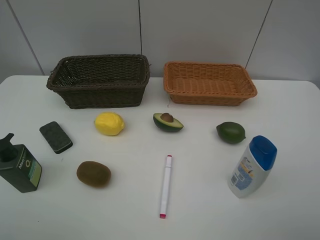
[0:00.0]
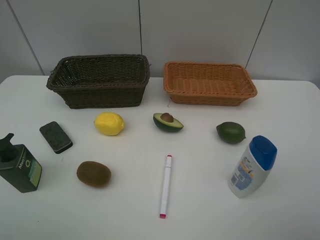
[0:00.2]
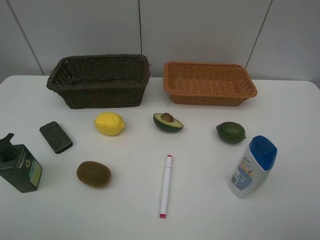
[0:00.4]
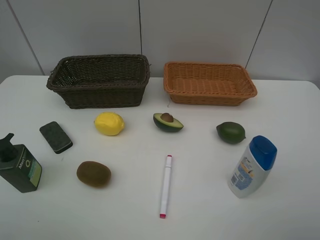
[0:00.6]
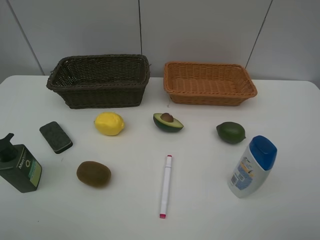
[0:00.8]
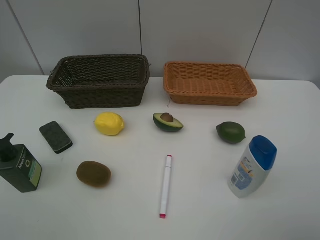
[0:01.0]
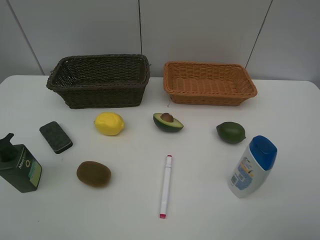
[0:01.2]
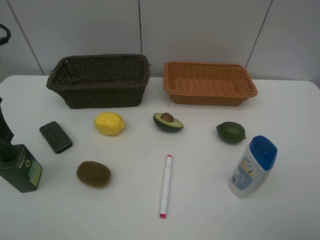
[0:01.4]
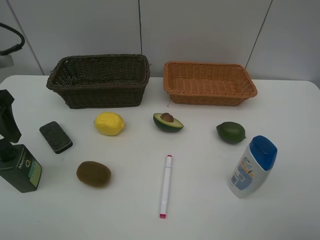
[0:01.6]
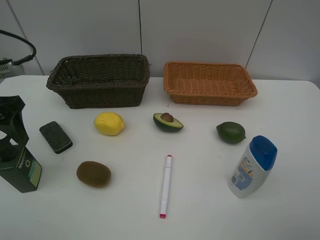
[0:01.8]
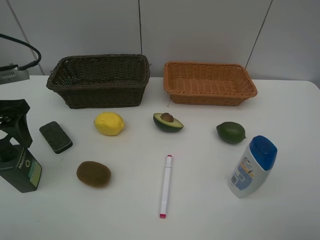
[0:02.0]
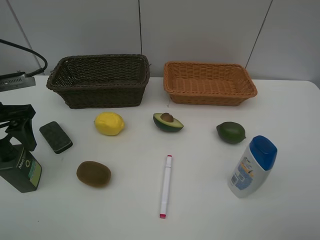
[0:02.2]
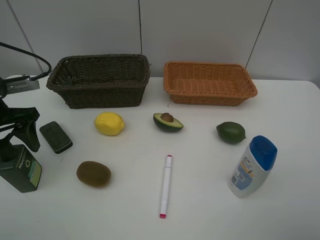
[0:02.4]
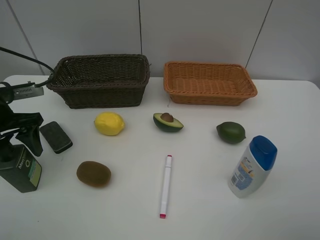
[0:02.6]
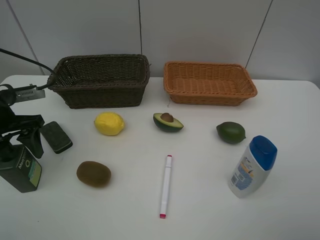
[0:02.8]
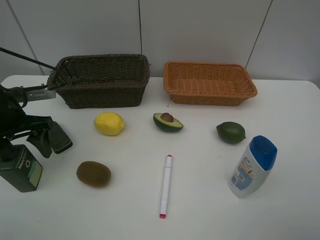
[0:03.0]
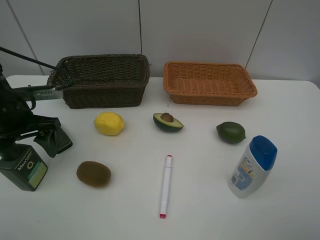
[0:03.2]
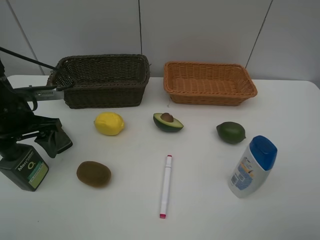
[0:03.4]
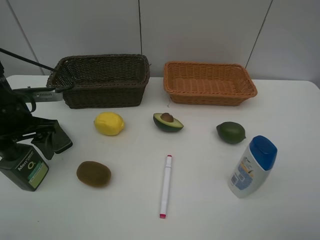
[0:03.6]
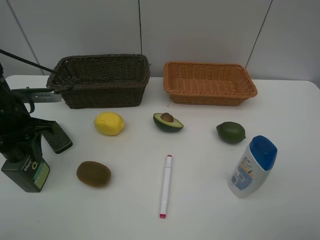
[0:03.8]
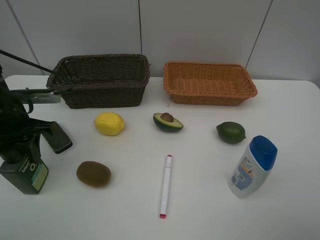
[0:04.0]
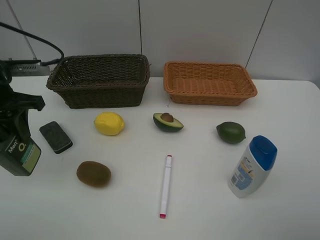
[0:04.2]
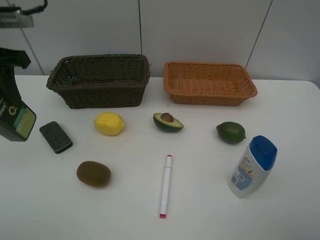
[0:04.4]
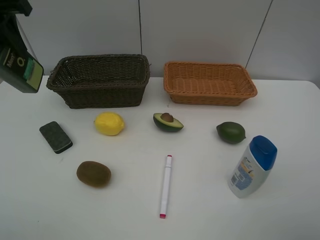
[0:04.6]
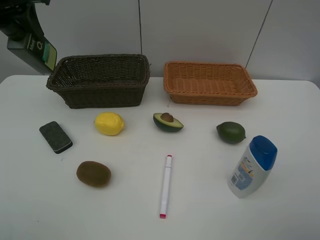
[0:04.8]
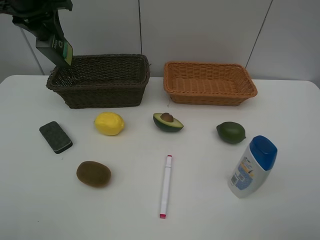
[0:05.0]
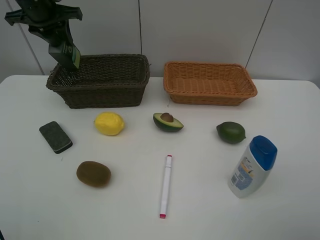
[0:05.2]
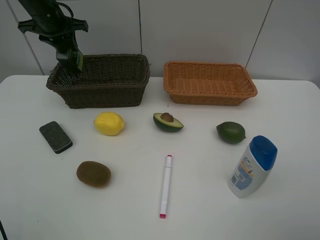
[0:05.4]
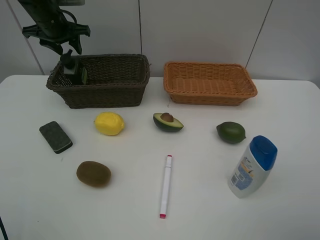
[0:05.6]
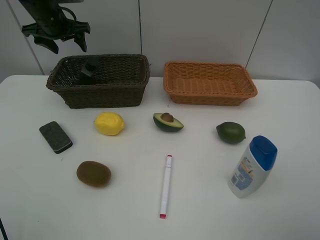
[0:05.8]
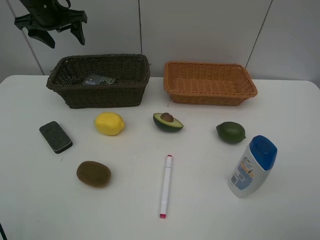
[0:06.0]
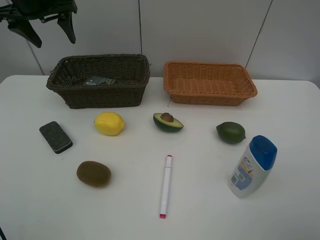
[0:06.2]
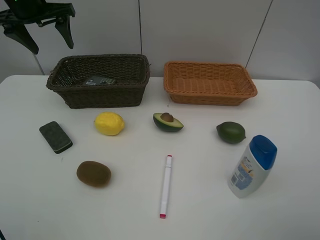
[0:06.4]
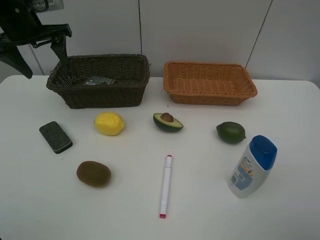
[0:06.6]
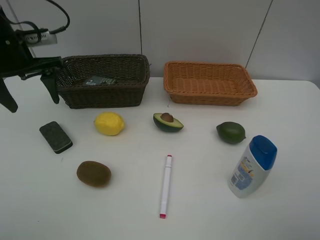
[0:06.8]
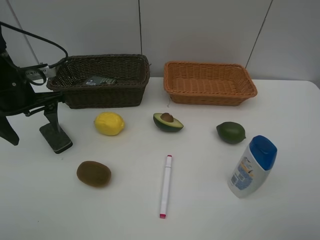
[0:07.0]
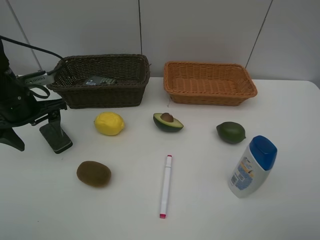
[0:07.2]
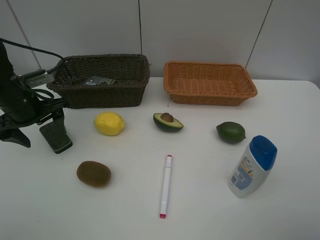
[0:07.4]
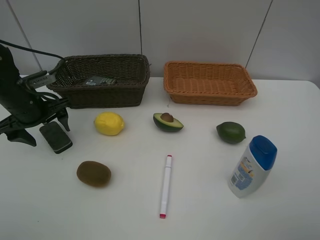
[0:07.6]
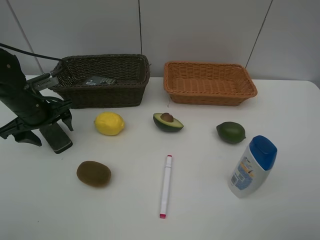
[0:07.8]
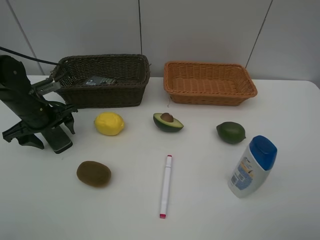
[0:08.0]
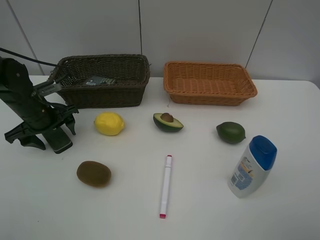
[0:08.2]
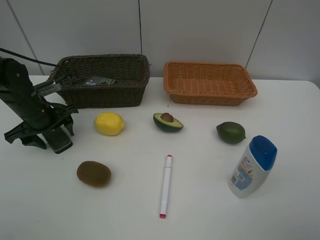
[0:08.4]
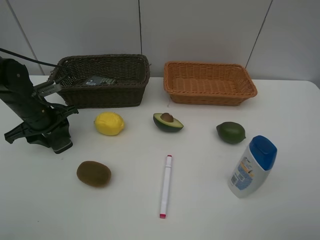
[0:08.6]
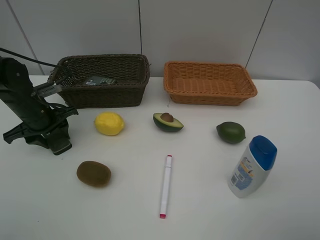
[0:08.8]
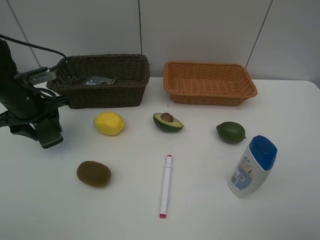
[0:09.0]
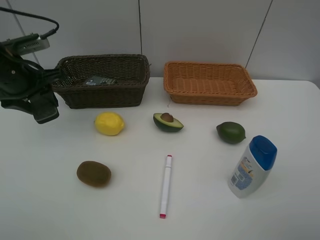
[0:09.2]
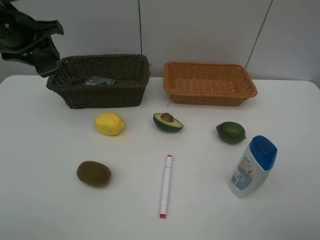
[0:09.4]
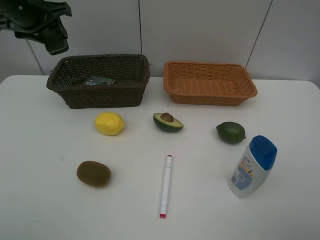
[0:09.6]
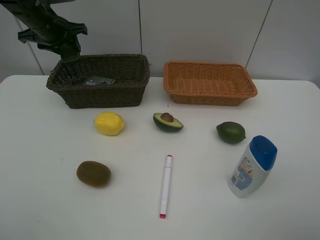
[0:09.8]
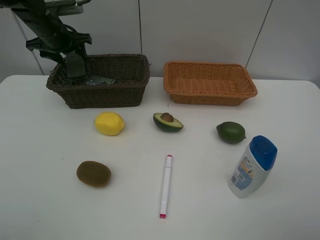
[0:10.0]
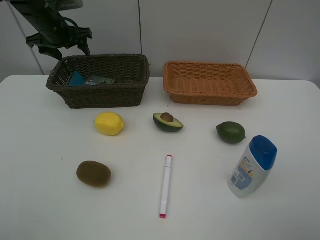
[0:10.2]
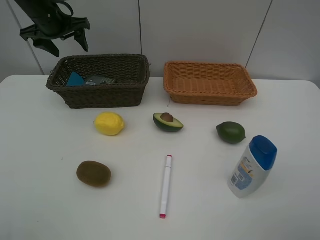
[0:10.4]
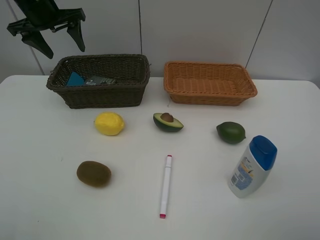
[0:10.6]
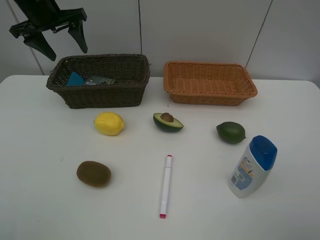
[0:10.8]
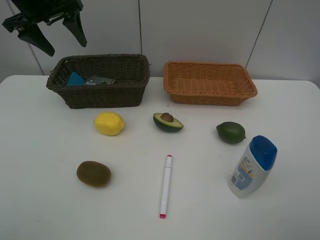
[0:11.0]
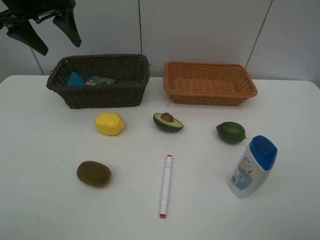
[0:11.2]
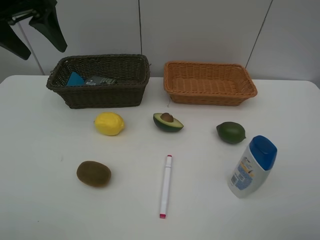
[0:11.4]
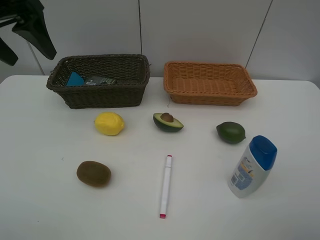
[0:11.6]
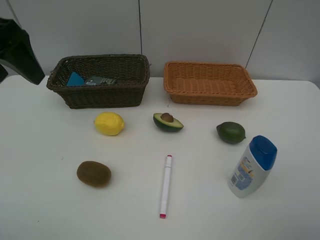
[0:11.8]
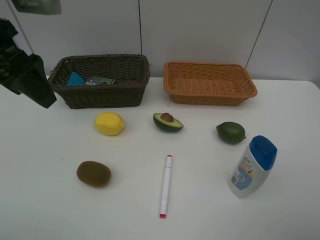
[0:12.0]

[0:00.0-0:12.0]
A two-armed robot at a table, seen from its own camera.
Task of the whole recording: Place multiple objects separately in different baskets.
Step, 0.0 to 4.0 s: Pick up the hard facial cleanser with left gripper.
Step, 4.2 to 5.8 s: Place the hard facial cleanser in the dark basket with left gripper.
Step, 6.0 to 8.8 s: Pick up blackboard eraser with left gripper.
Step, 9.0 to 10.2 s: Place the blackboard eraser in the dark basket with left gripper.
0.0 to 1.6 s: The left gripper travels forward by some 25 cm.
1.6 to 3.0 s: The left gripper heads downward, covering some 10 cm.
3.0 to 4.4 s: The left gripper is displaced upward by approximately 15 cm, and closes.
4.4 to 6.0 s: The left gripper heads forward, covering roughly 20 cm, and opens.
6.0 to 7.6 s: The left gripper moves backward and downward, roughly 20 cm.
7.6 to 9.0 s: The left gripper closes up.
9.0 to 10.4 s: The left gripper goes about 20 cm forward and upward, and opens its fingers.
10.4 to 12.0 s: The left gripper goes roughly 25 cm backward.

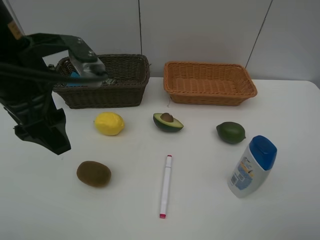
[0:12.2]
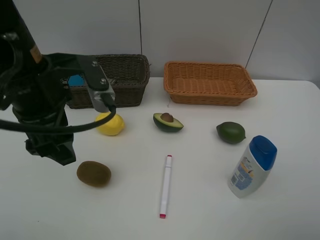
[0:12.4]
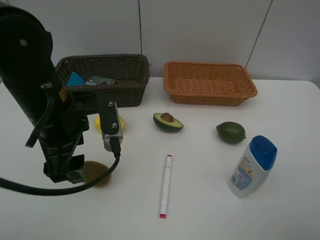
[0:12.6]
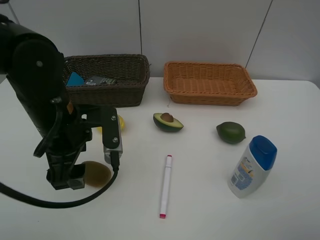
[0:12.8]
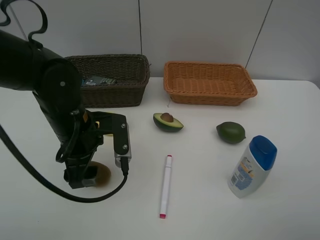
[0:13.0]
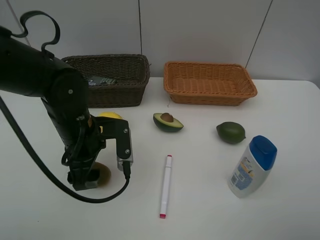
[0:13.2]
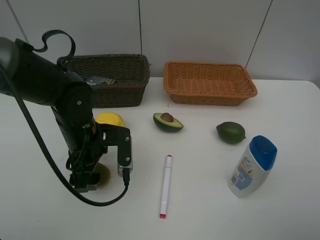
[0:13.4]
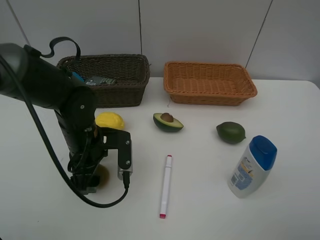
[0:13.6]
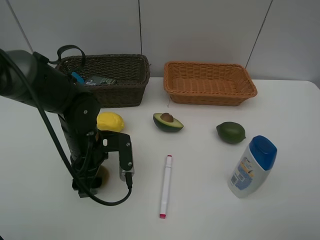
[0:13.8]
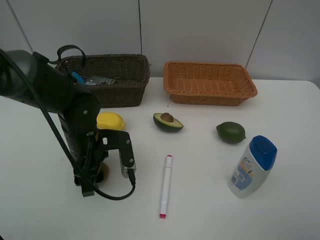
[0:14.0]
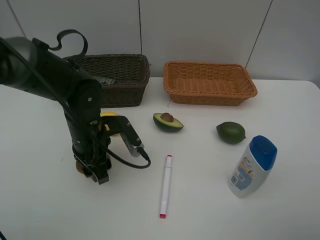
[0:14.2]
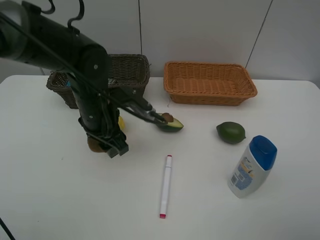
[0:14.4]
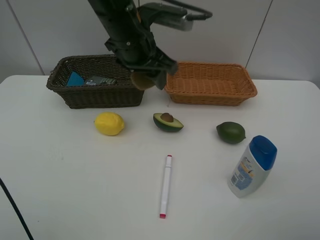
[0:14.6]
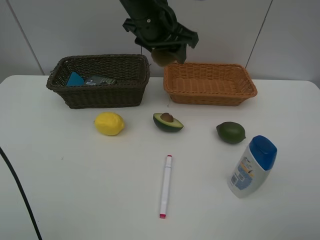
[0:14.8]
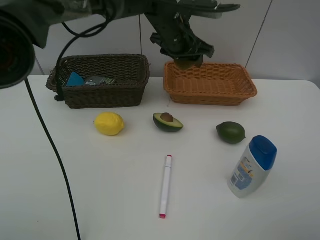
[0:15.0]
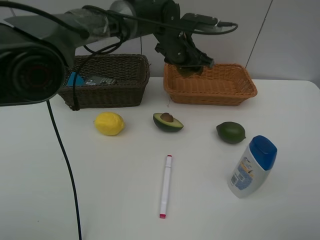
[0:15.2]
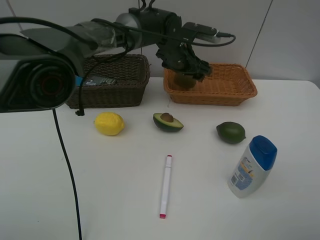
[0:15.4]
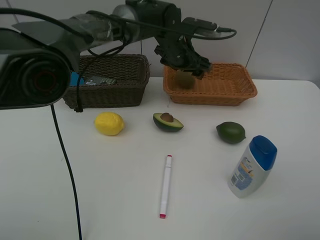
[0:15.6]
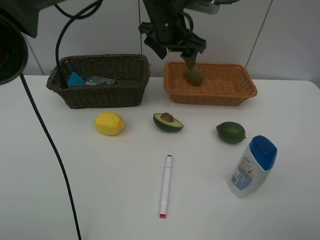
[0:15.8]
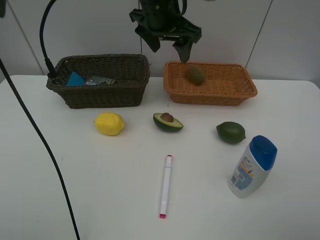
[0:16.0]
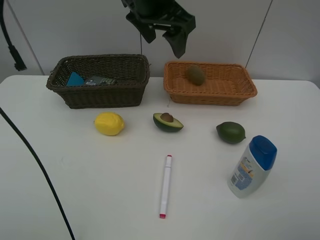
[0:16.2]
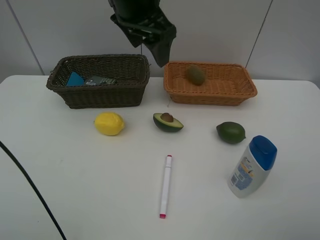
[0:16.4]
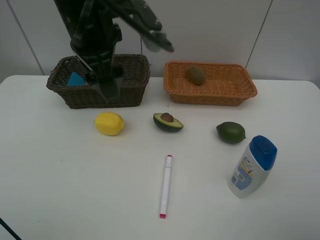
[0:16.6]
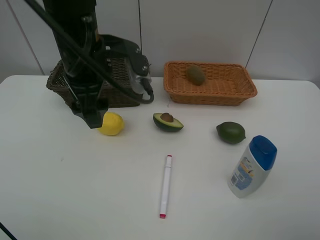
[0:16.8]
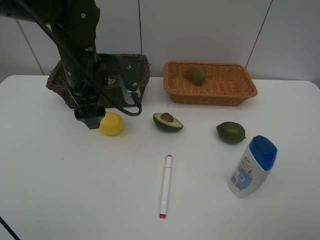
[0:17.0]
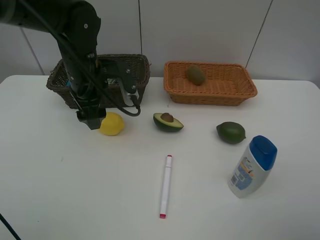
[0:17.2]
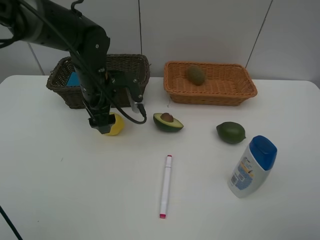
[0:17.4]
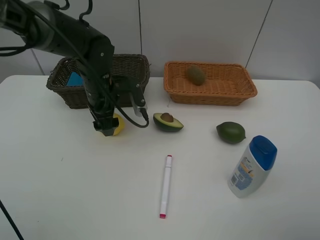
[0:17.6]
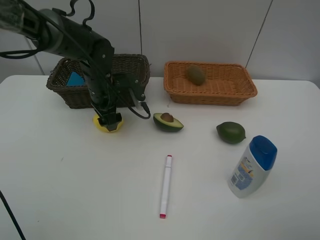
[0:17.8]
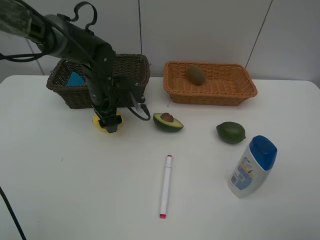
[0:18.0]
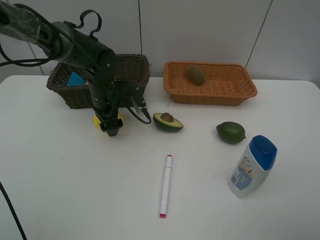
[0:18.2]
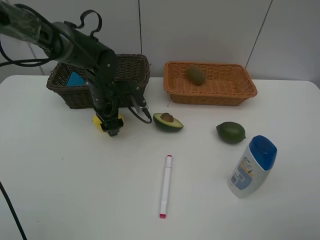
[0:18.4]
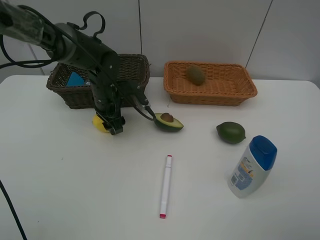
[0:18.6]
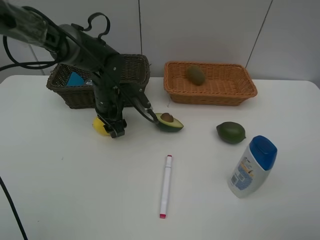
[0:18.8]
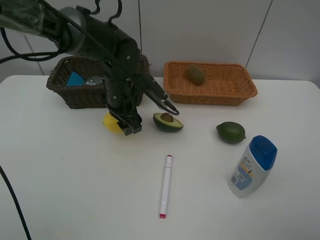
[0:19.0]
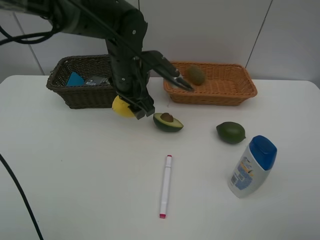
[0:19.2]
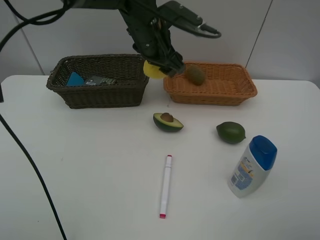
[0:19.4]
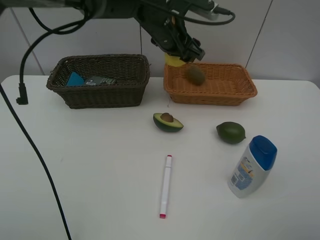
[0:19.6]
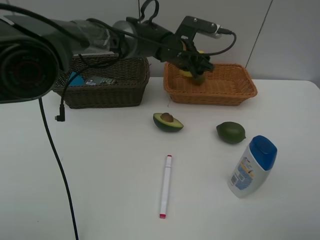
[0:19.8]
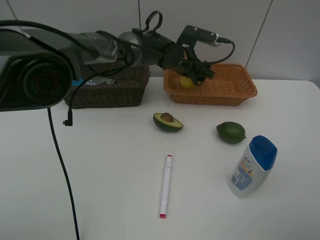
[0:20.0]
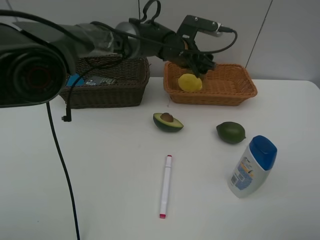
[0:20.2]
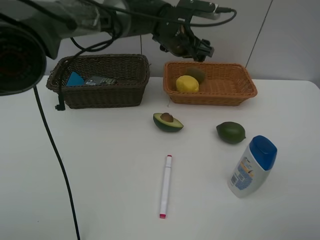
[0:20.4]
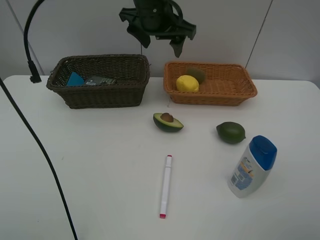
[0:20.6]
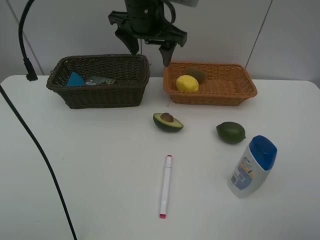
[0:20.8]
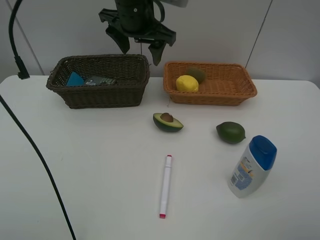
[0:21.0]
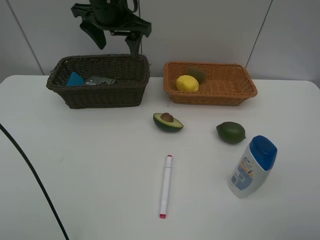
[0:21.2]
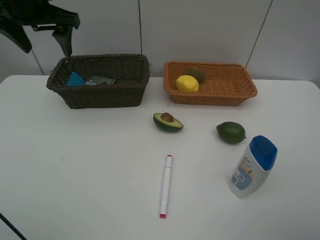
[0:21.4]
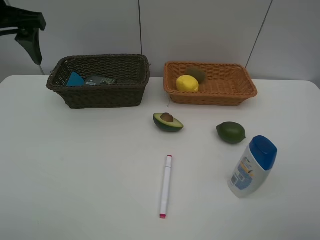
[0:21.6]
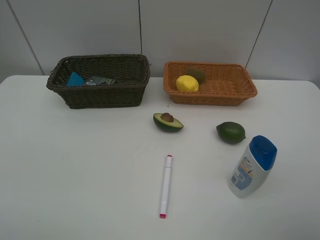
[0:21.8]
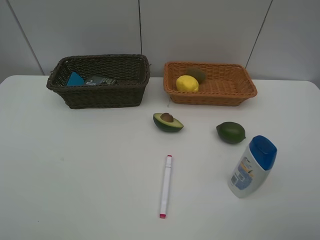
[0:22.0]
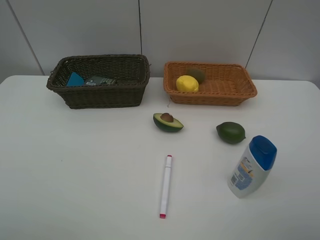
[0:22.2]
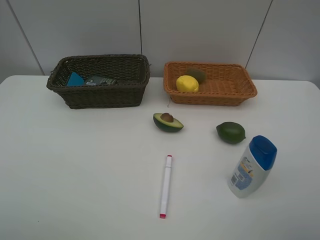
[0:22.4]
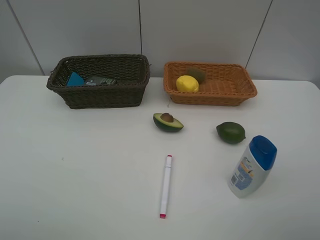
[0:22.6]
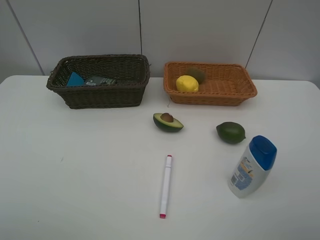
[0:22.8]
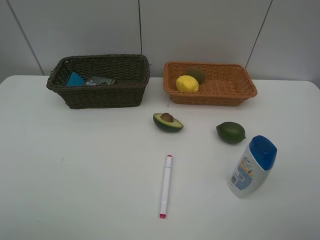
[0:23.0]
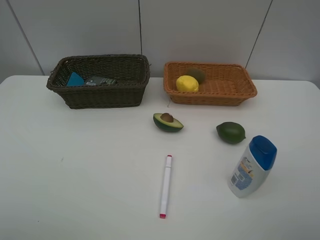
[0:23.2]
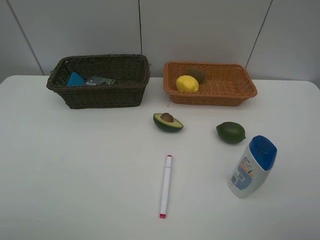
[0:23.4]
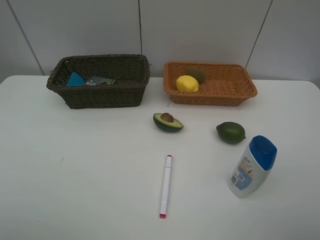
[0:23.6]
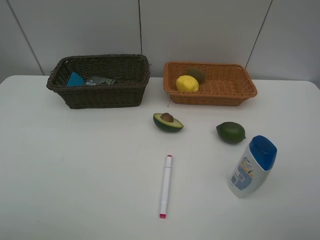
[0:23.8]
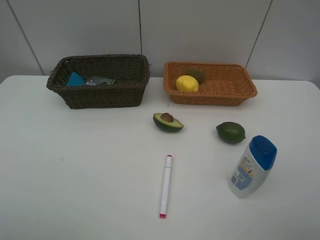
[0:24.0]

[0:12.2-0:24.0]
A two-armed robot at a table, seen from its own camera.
Task of the whole recording: Place multiple objects separately in different baskets.
Step, 12.2 to 14.2 s: Pick up kiwi with left gripper.
Step, 14.4 to 15.6 s: Place the kiwi in the light basket with left gripper.
Step, 15.8 to 19.0 s: Pick up the lemon with left gripper.
Step, 19.2 to 20.2 s: Place the lemon in the light basket with left gripper.
12.2 to 13.6 s: The left gripper shifts about 20 cm downward.
13.6 to 15.2 s: The left gripper shifts some 30 cm forward, to the right and upward, and closes its fingers.
15.2 to 16.6 s: The left gripper shifts about 25 cm backward, to the left and upward, and opens.
16.6 to 18.2 s: The left gripper is displaced downward and forward by some 25 cm.
18.2 to 19.6 s: The left gripper is displaced upward and to the right by some 20 cm.
19.6 to 21.0 s: The left gripper shifts roughly 10 cm to the left and upward.
21.0 to 22.6 s: The left gripper heads backward and to the left, covering some 50 cm.
